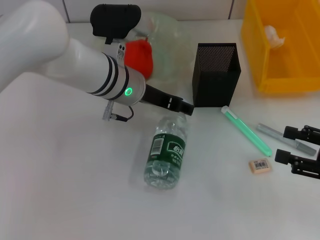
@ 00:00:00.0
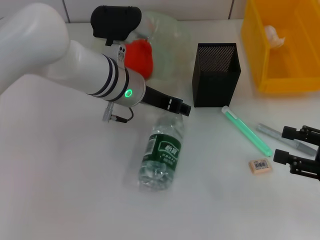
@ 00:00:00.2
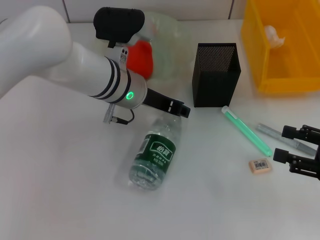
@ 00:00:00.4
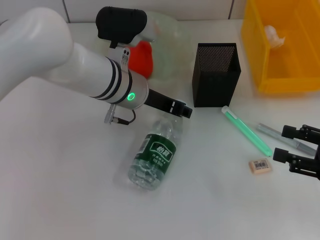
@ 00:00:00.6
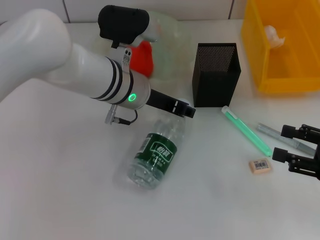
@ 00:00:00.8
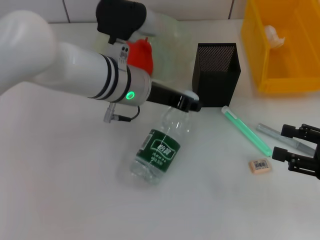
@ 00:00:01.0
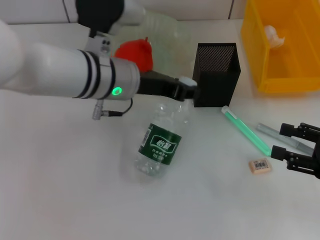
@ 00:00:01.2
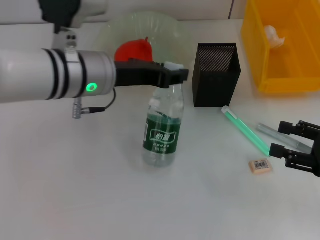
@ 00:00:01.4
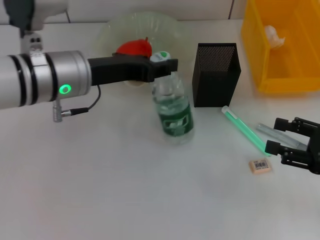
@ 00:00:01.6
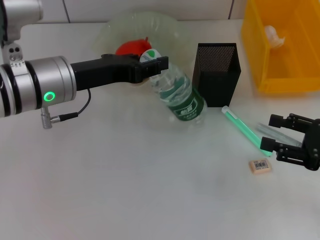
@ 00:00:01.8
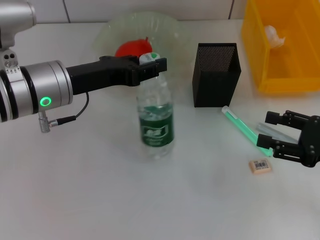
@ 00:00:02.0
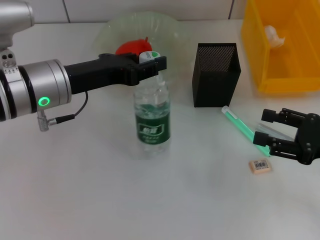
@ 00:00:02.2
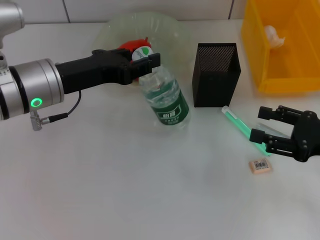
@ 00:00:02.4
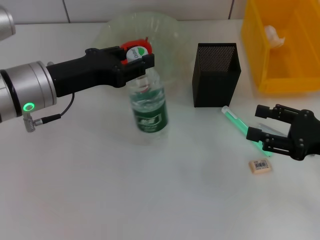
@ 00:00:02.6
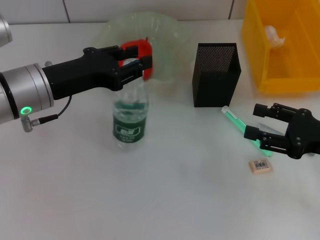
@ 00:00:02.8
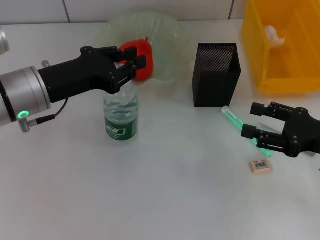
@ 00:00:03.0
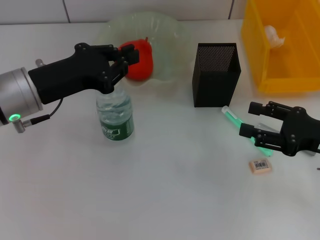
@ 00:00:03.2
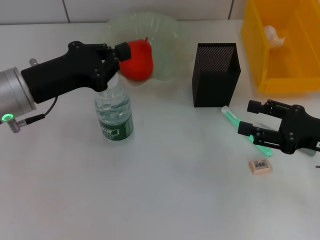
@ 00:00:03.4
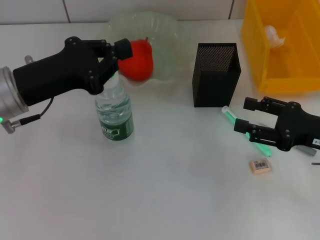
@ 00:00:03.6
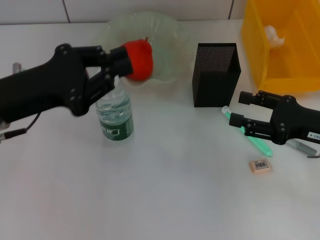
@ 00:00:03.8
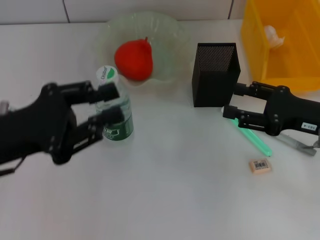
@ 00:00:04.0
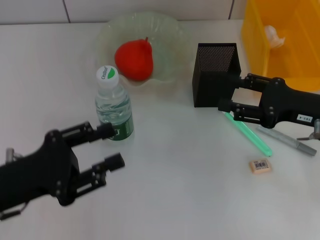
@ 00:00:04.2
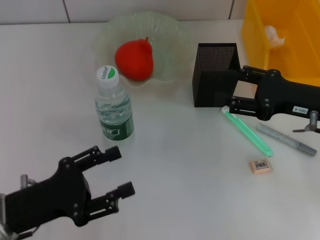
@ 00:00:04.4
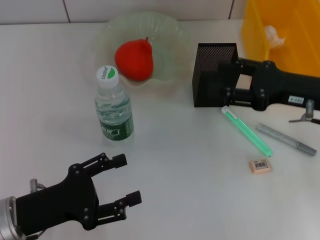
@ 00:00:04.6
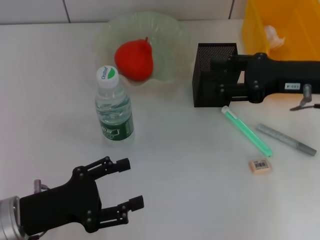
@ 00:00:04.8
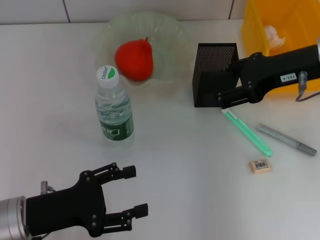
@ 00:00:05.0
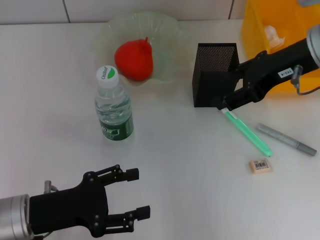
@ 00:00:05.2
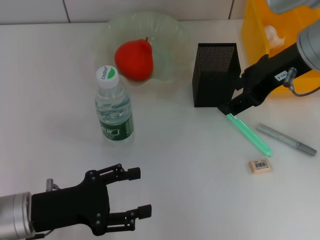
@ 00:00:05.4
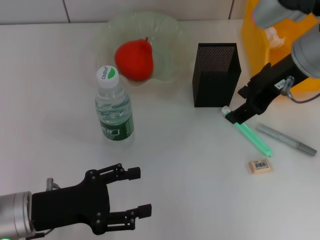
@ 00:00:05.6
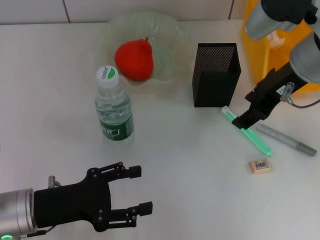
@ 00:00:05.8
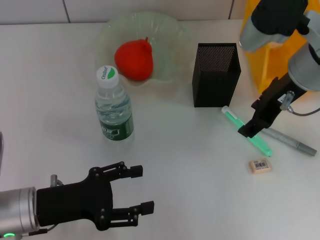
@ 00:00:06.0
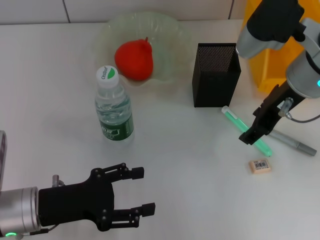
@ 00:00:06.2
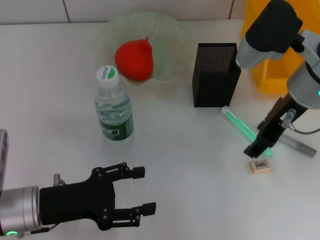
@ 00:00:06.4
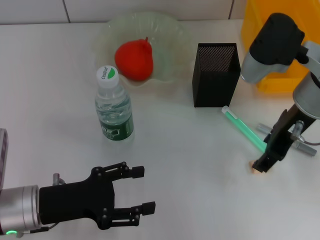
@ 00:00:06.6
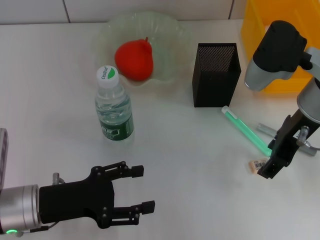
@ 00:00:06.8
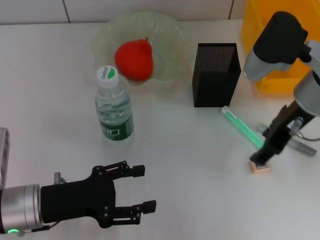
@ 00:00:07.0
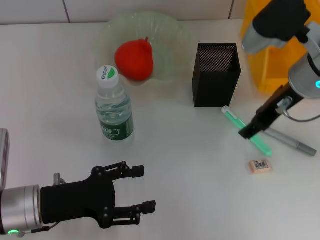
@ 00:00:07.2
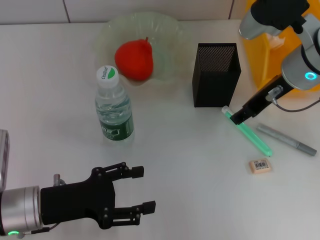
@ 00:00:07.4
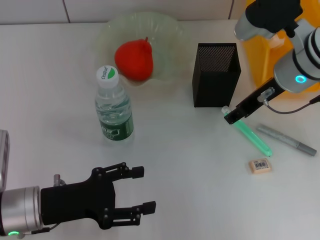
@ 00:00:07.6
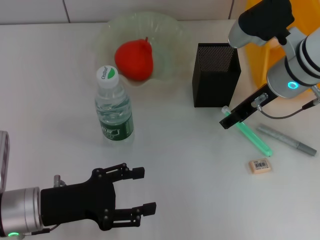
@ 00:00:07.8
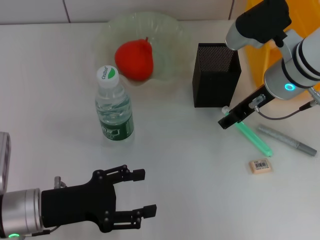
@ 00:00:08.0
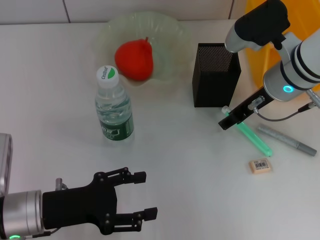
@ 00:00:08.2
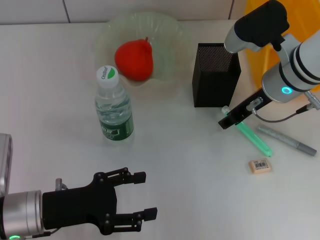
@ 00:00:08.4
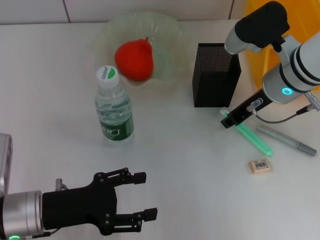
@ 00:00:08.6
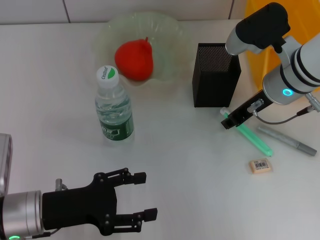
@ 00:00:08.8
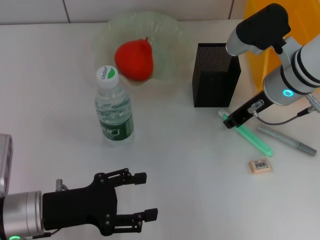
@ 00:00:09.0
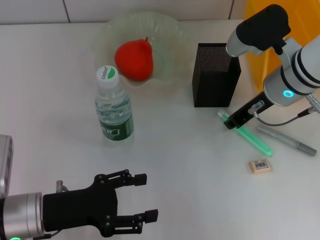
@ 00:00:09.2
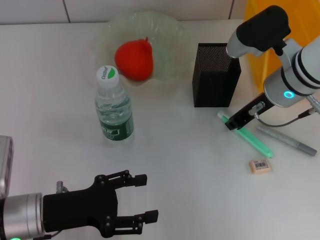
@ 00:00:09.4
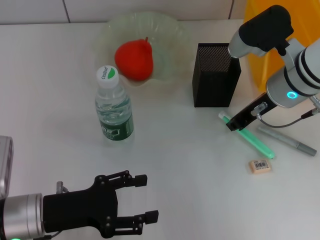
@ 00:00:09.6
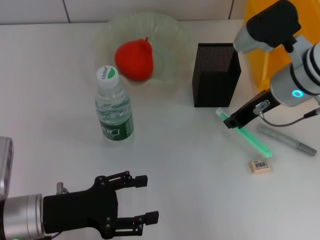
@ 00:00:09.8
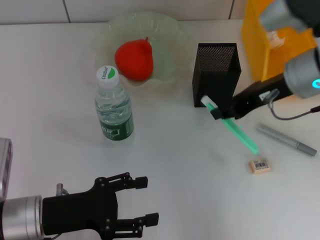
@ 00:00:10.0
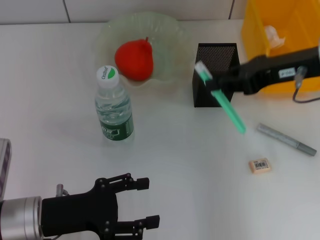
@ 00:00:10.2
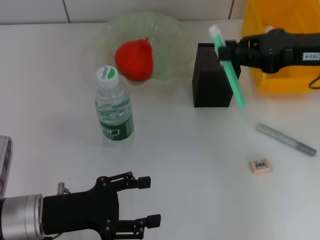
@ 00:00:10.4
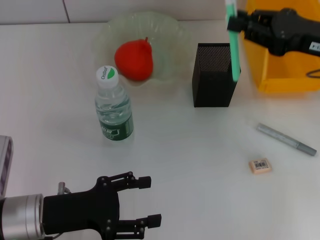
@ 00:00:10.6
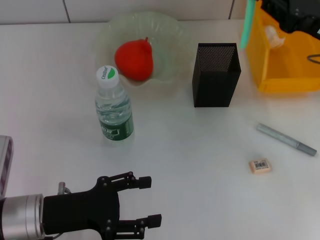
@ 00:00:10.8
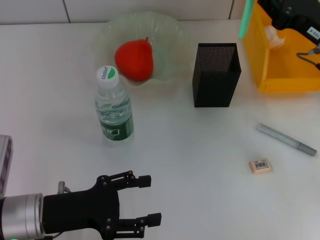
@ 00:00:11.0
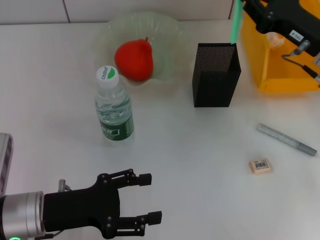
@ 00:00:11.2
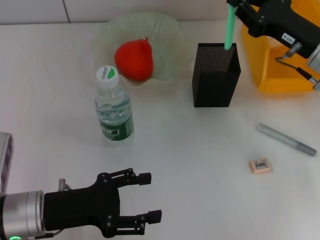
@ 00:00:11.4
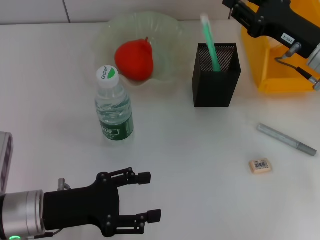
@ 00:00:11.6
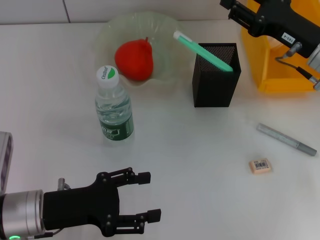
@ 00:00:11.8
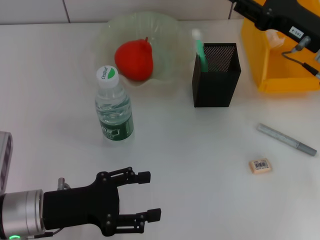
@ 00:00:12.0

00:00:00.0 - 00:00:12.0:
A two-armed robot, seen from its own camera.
Step, 00:00:00.8 - 00:00:03.2: Place the water bottle on the table with the left hand.
Step, 00:00:03.4 - 00:00:09.4: Grab the blue utility knife with the right hand.
00:00:00.0 - 00:00:01.6: The left gripper moves to the left and backward, approximately 10 cm, and closes.
00:00:01.6 - 00:00:03.0: The left gripper is displaced to the left by about 5 cm.
00:00:03.0 - 00:00:04.4: The right gripper travels forward by some 5 cm. Meanwhile the left gripper travels backward and downward by roughly 15 cm, and closes and opens again.
00:00:04.4 - 00:00:06.0: The left gripper opens. The right gripper travels upward and to the left by approximately 15 cm.
00:00:06.0 - 00:00:07.6: The grippers move only a little.
00:00:07.6 - 00:00:09.0: The right gripper closes its fingers.
00:00:09.0 - 00:00:10.4: The right gripper shifts roughly 10 cm to the right and upward.
00:00:10.4 - 00:00:12.0: The right gripper moves downward, roughly 5 cm, and opens up.

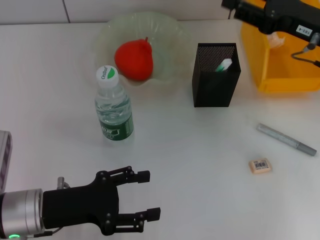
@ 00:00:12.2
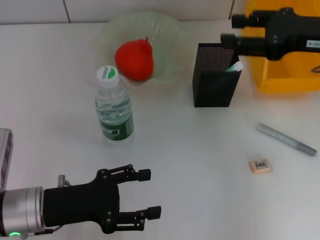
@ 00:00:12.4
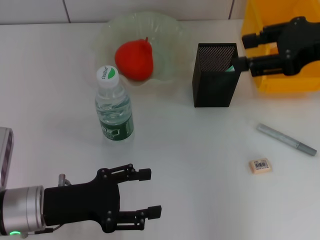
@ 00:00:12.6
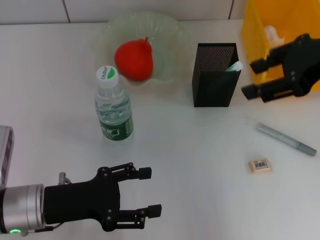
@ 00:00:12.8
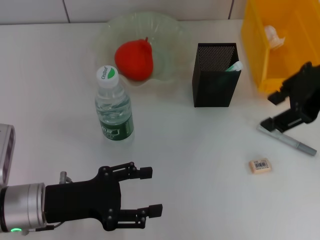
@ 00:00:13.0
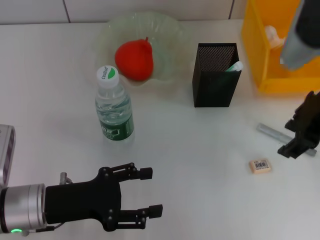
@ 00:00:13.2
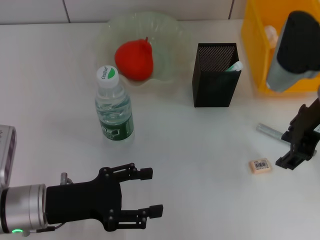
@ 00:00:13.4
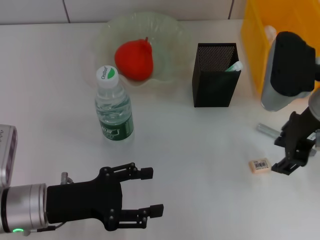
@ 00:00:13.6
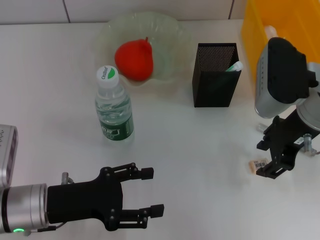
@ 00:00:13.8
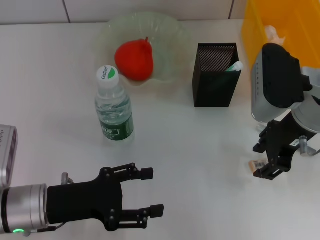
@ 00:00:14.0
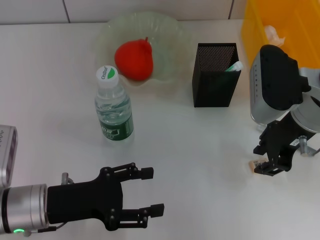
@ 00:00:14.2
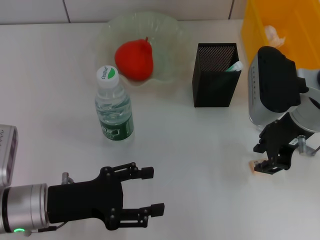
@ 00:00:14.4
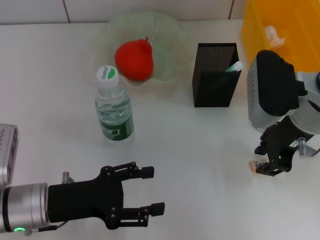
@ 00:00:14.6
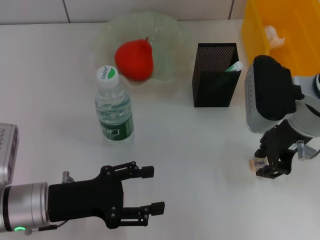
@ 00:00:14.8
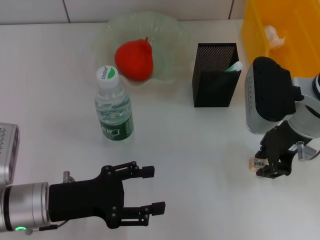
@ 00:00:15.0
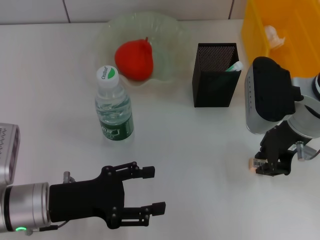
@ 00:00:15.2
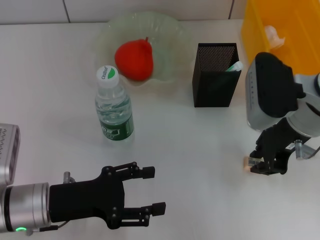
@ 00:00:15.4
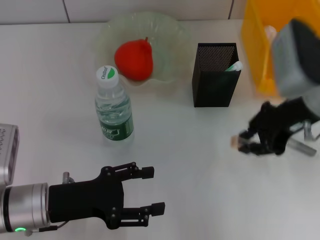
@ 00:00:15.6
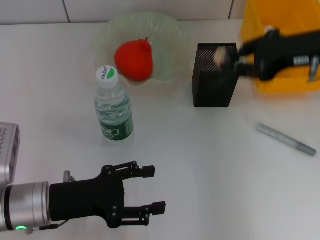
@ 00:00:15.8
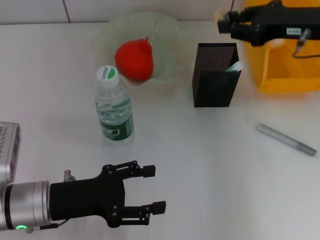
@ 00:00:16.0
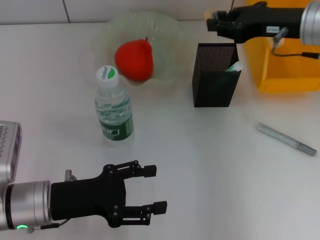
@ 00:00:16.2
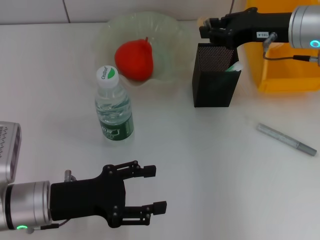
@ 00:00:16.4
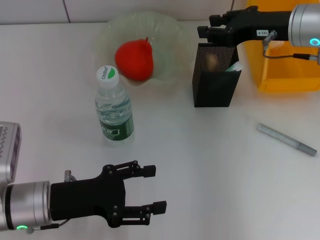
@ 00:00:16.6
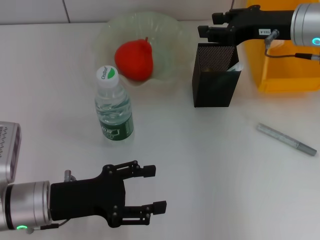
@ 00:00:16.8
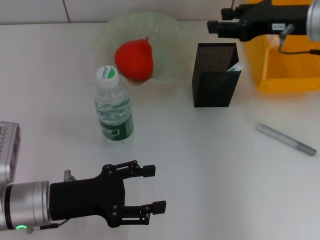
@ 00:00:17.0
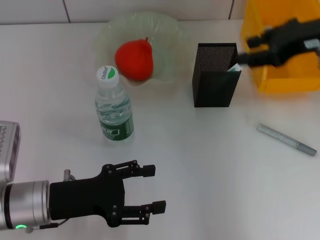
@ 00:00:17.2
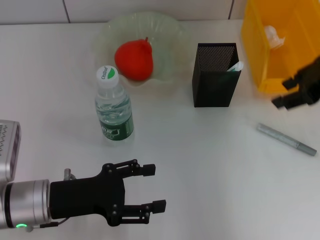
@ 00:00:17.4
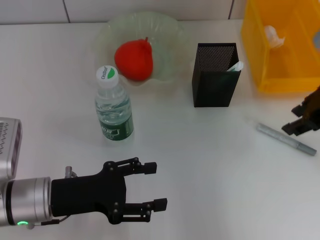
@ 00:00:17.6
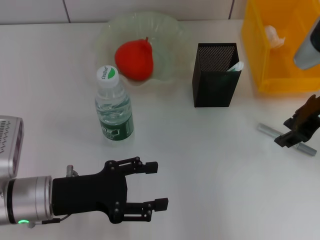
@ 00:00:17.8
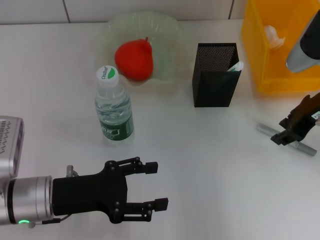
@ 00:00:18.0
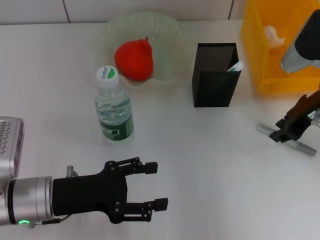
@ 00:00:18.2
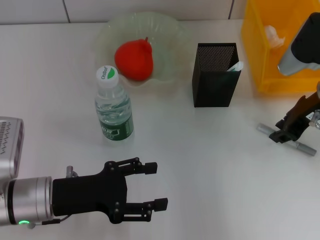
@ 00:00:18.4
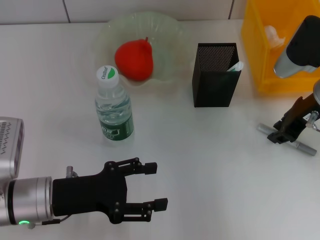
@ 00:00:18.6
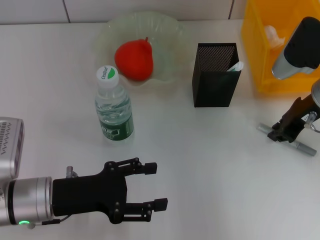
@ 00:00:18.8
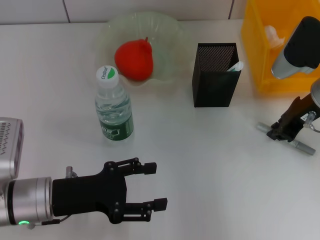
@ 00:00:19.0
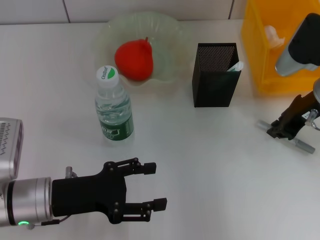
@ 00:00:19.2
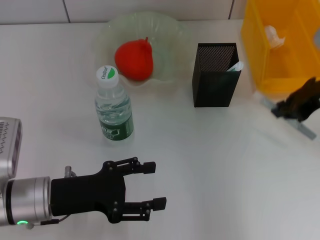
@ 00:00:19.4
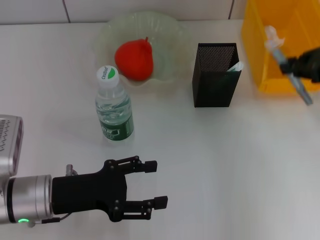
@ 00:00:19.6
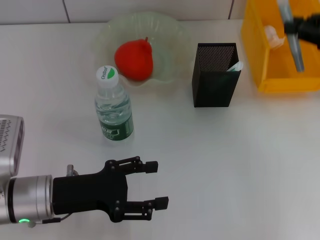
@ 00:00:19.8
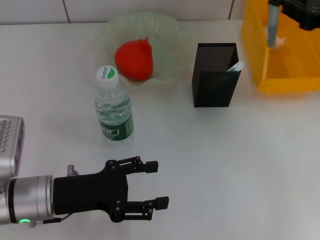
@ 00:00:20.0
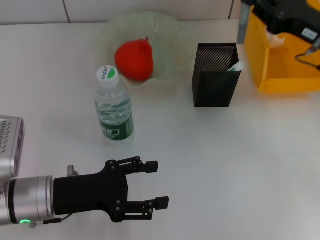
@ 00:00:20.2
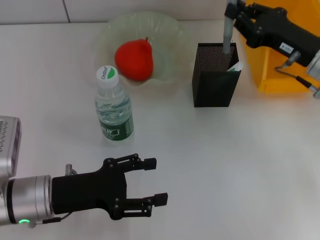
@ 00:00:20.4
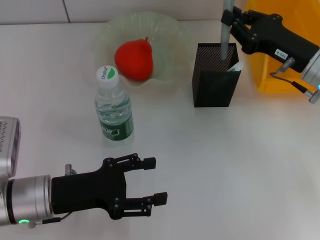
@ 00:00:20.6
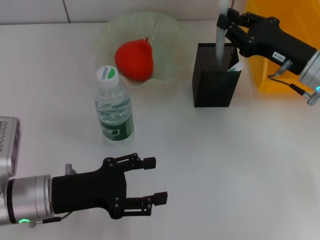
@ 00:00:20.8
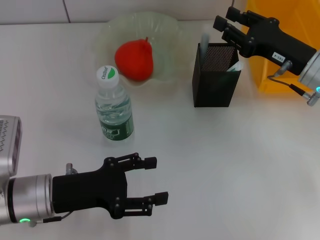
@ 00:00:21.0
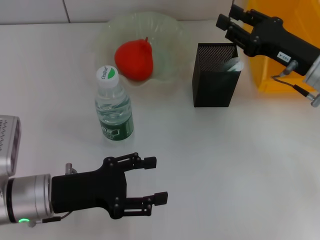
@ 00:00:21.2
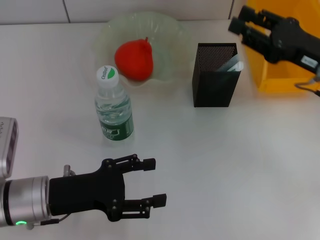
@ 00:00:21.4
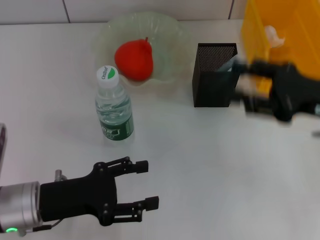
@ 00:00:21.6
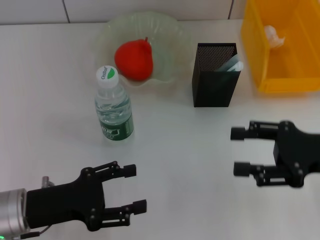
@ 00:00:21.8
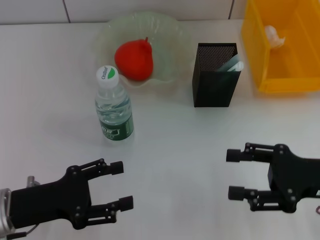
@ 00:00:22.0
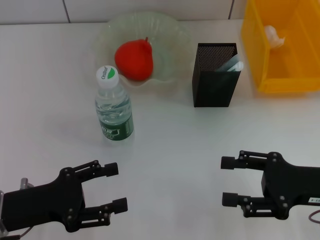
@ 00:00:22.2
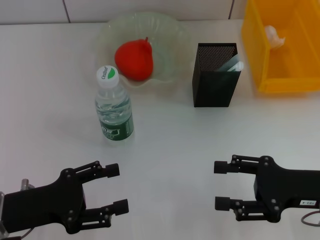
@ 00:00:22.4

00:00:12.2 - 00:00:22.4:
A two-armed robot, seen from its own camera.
Step, 00:00:12.6 - 00:00:14.8: Grab the eraser with the right hand.
Step, 00:00:15.0 - 00:00:16.6: Put the eraser into the pen holder with the right hand.
Step, 00:00:16.8 - 00:00:19.0: Grab the gray glue with the right hand.
Step, 00:00:19.2 - 00:00:21.0: Place the gray glue into the pen holder with the right hand.
00:00:12.2 - 00:00:13.6: The right gripper shifts some 5 cm to the left, and moves approximately 10 cm upward and comes back.
00:00:13.6 - 00:00:15.2: The right gripper closes up.
00:00:15.2 - 00:00:16.6: The right gripper shifts roughly 10 cm forward.
00:00:16.6 - 00:00:18.0: The right gripper shifts by approximately 5 cm.
00:00:18.0 - 00:00:19.4: The right gripper closes its fingers.
00:00:19.4 - 00:00:21.0: The right gripper goes approximately 5 cm downward.
00:00:21.0 - 00:00:22.4: The left gripper shifts some 5 cm to the left; the right gripper shifts roughly 15 cm backward, and opens its fingers.
